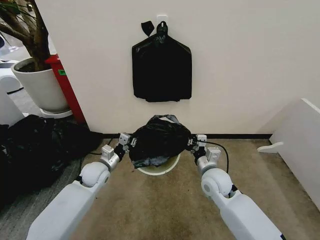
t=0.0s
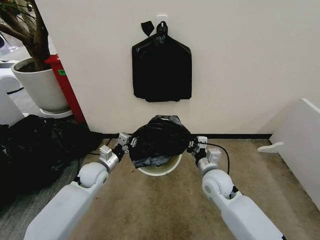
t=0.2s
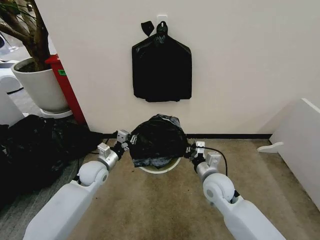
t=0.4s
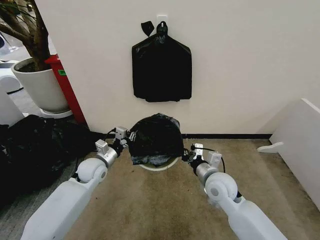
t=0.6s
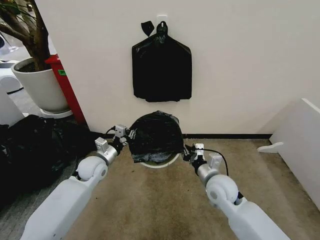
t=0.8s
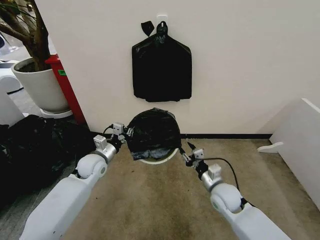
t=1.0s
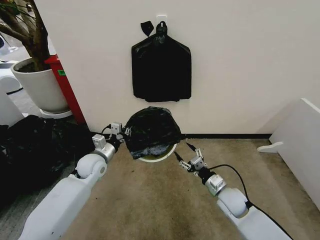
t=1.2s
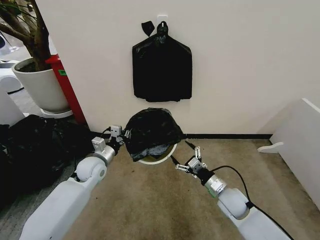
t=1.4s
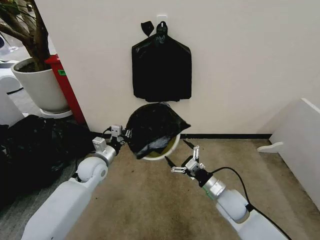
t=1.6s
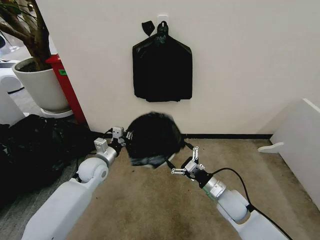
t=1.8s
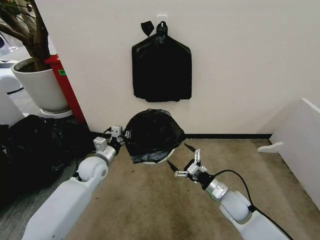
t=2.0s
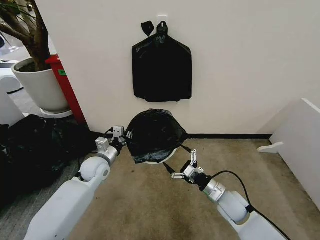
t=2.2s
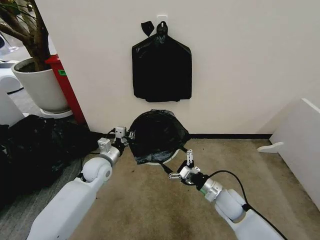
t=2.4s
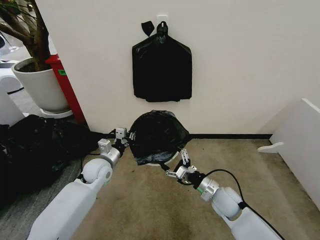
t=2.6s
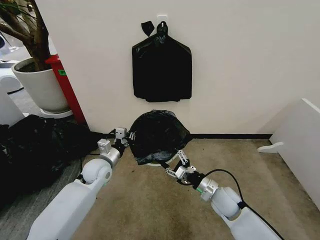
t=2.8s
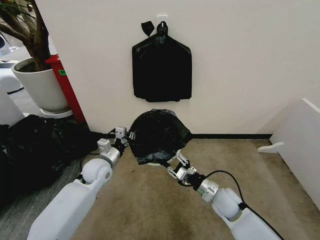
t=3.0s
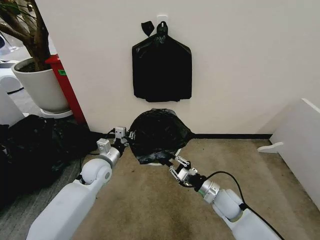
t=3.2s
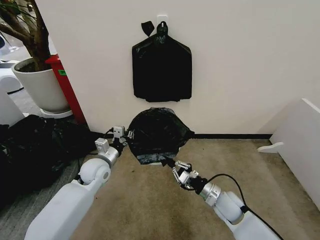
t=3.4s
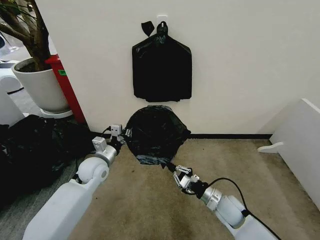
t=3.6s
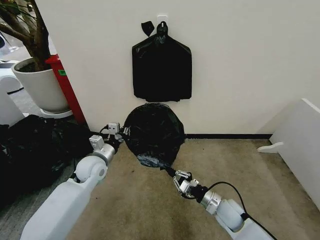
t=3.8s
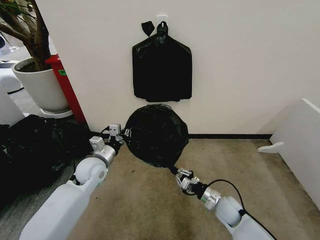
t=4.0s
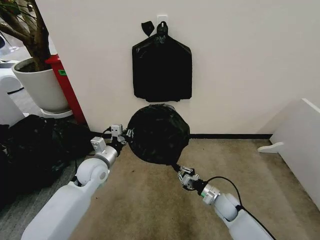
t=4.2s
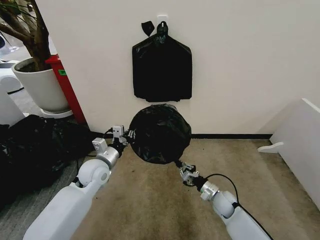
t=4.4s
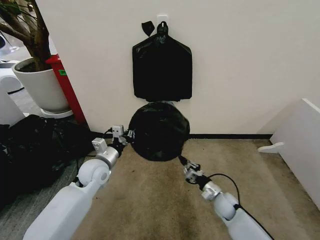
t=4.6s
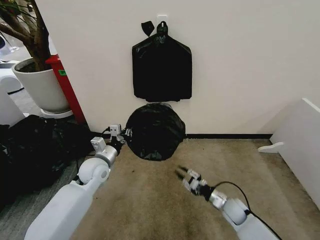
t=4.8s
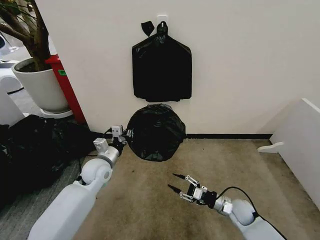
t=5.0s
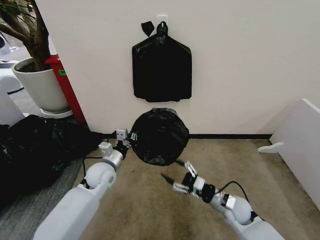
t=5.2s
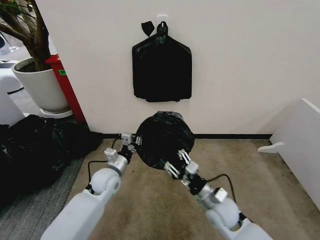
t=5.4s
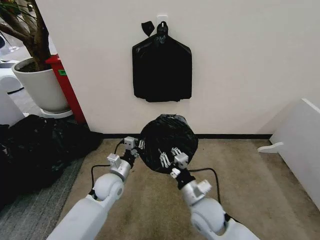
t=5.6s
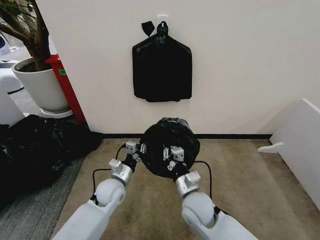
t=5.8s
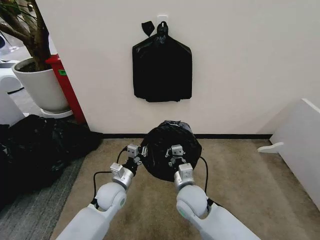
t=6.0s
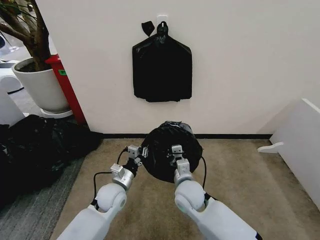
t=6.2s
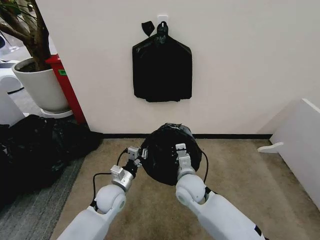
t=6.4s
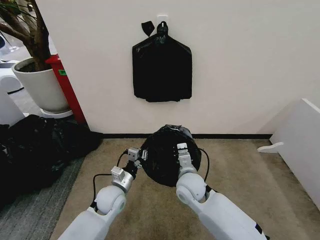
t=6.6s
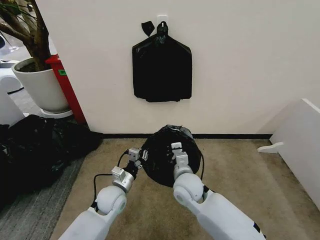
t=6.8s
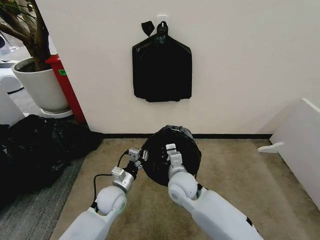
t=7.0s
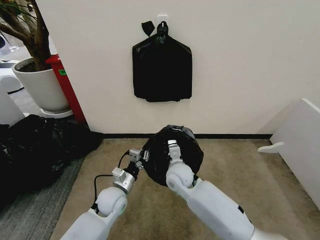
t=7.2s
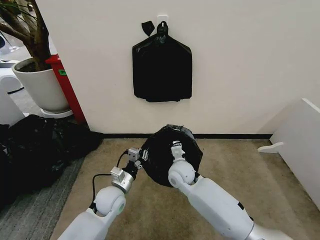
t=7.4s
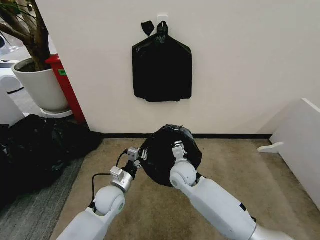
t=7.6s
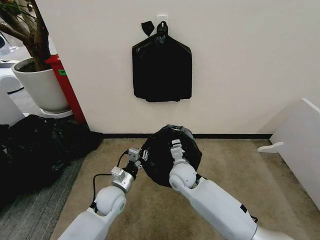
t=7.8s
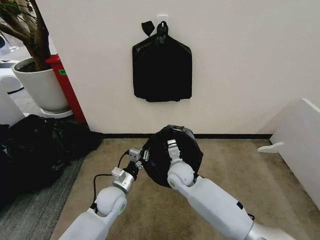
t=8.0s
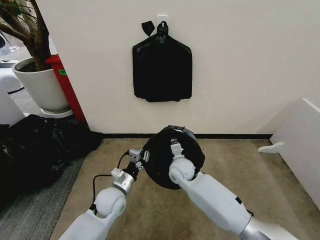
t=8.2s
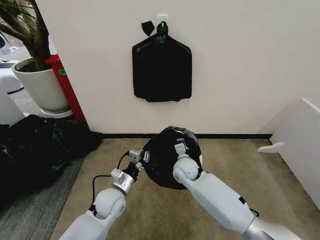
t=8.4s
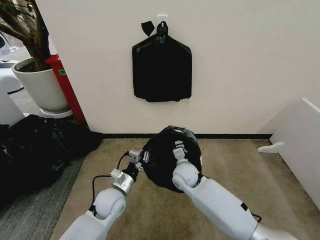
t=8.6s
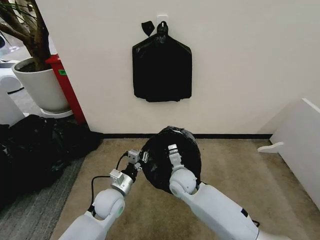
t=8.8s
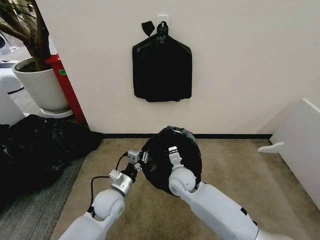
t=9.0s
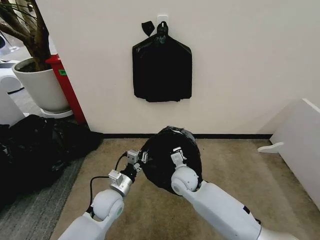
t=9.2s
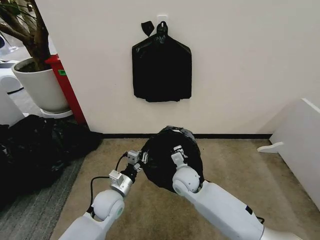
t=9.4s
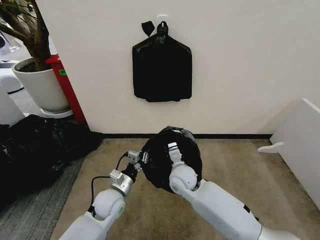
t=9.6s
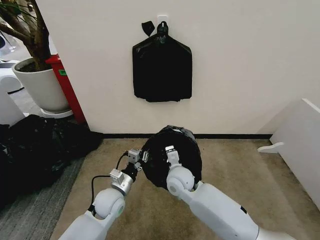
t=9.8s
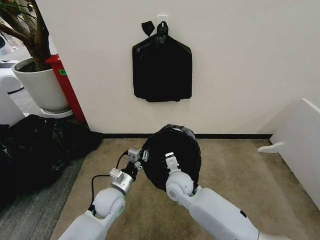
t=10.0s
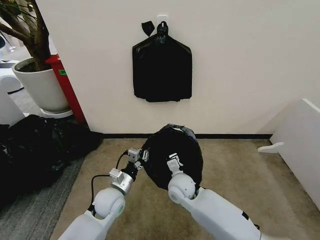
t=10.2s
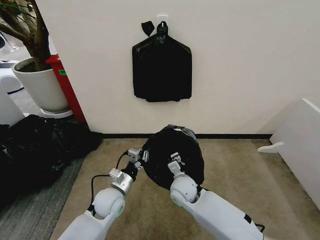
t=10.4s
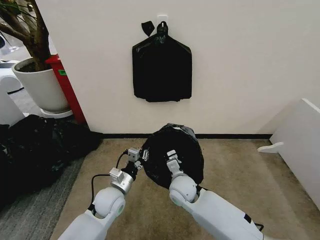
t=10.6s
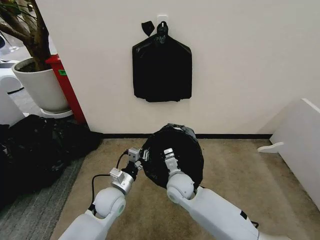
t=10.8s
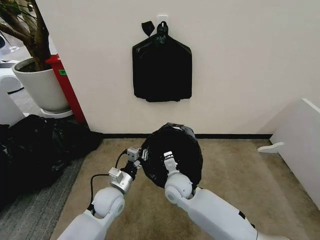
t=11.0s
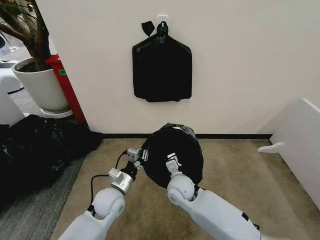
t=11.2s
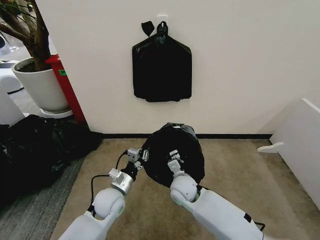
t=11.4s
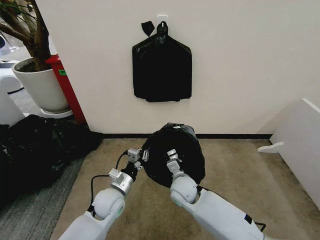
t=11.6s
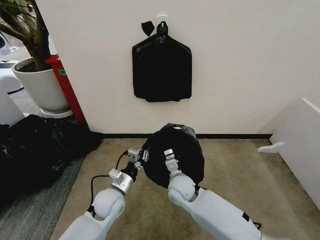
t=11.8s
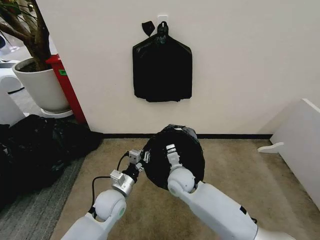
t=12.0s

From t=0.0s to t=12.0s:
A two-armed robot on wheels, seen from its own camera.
Task of the whole recording: Place the garbage bag over the trash bin.
From t=0.0s to t=1.6s: The right gripper heads downward and to the right, covering roughly 10 cm, and opens its fingers.
From t=1.6s to t=3.0s: The right gripper closes its fingers.
From t=3.0s to t=4.4s: The right gripper goes approximately 10 cm downward, and closes its fingers.
From t=4.4s to t=6.0s: The left gripper moves downward and to the right, about 10 cm. The right gripper travels to the left and upward by roughly 25 cm, and opens and closes again.
From t=6.0s to t=7.6s: The right gripper heads forward, covering roughly 10 cm.
From t=7.6s to t=12.0s: There are only small adjustments of the grippers.

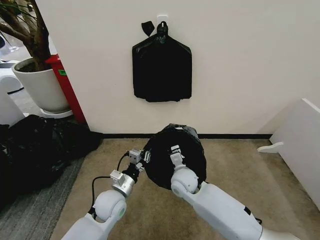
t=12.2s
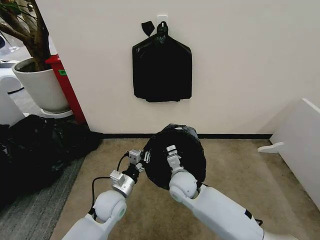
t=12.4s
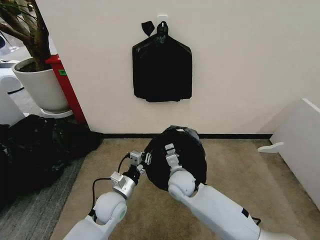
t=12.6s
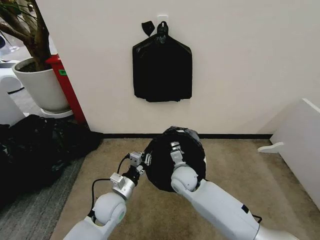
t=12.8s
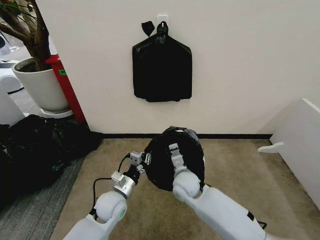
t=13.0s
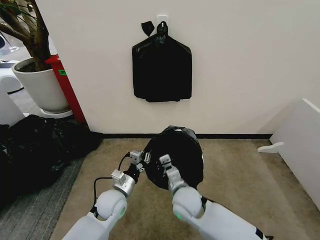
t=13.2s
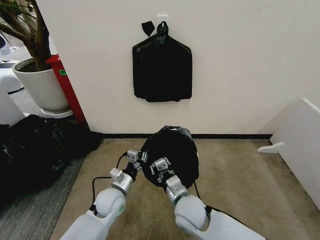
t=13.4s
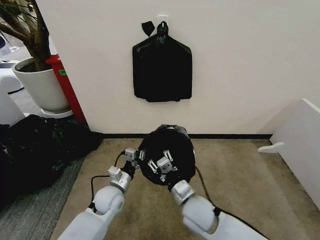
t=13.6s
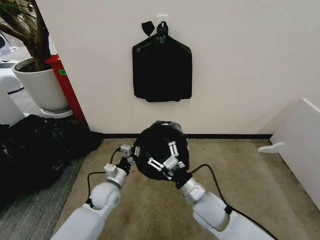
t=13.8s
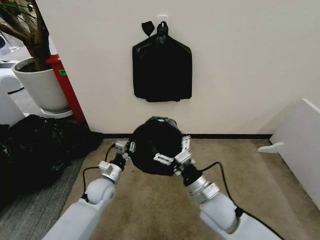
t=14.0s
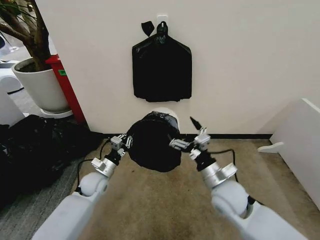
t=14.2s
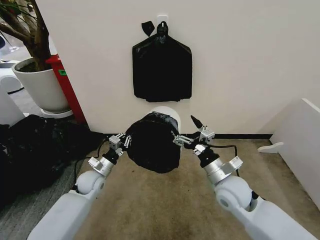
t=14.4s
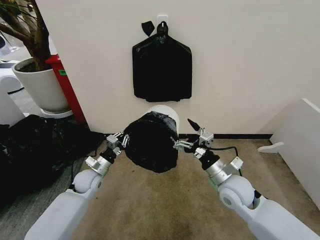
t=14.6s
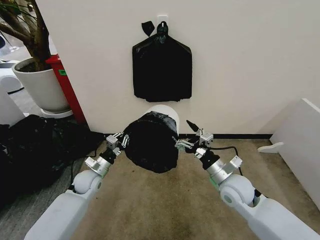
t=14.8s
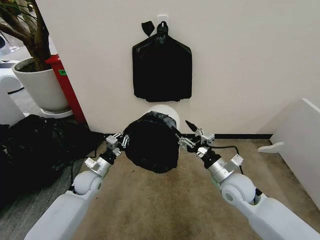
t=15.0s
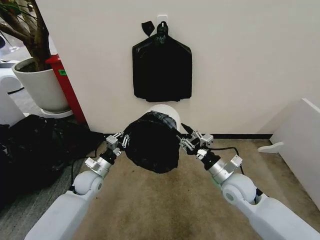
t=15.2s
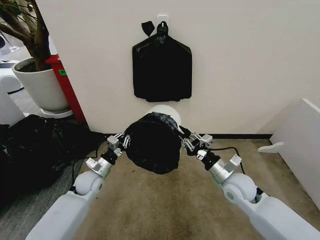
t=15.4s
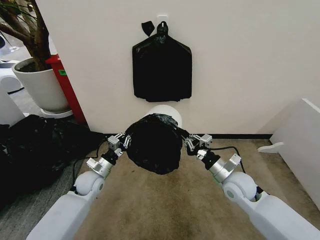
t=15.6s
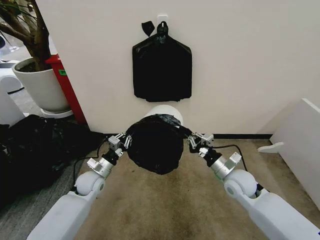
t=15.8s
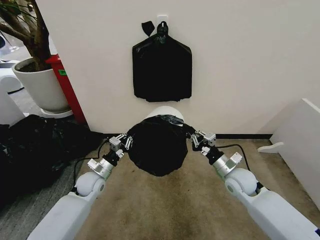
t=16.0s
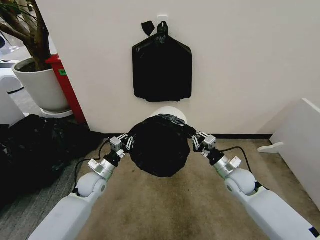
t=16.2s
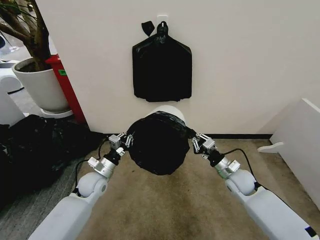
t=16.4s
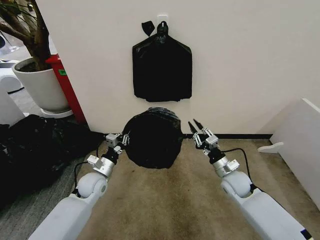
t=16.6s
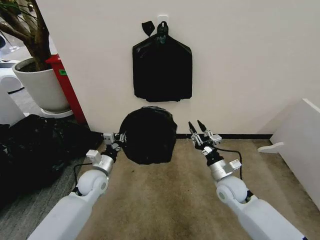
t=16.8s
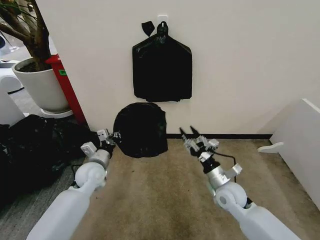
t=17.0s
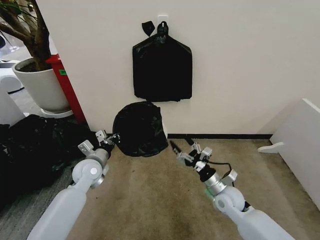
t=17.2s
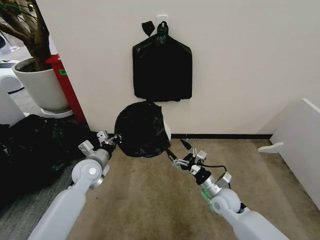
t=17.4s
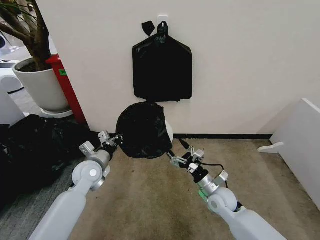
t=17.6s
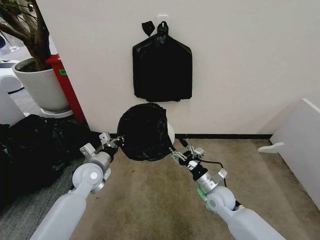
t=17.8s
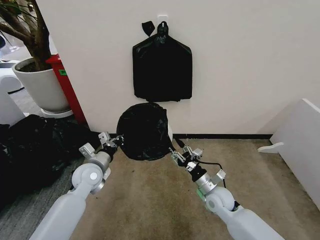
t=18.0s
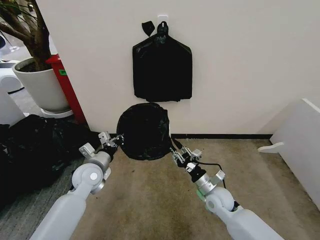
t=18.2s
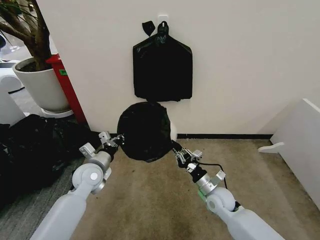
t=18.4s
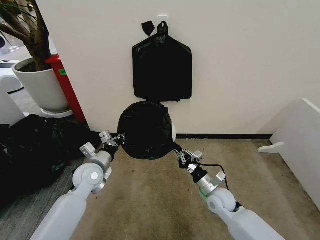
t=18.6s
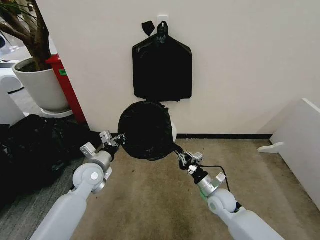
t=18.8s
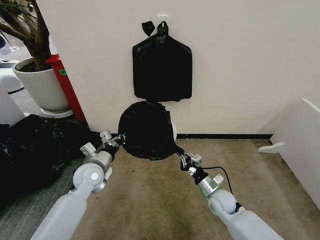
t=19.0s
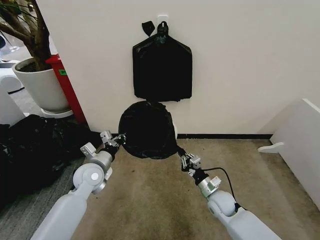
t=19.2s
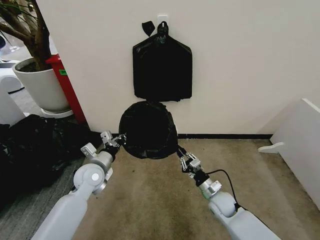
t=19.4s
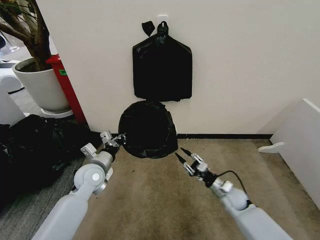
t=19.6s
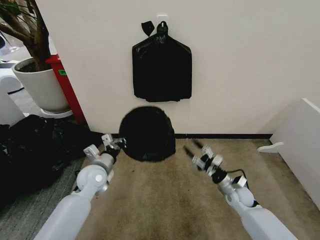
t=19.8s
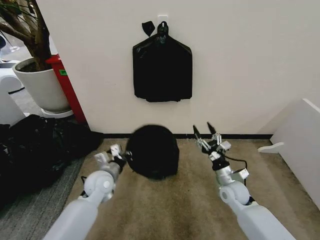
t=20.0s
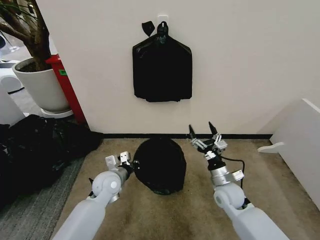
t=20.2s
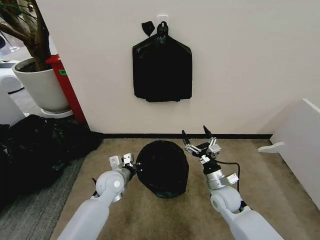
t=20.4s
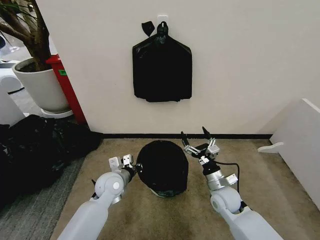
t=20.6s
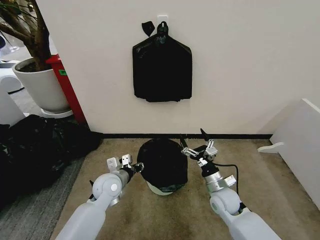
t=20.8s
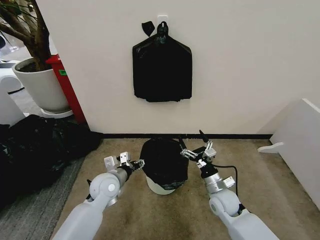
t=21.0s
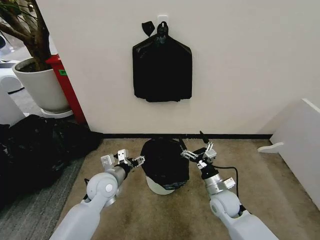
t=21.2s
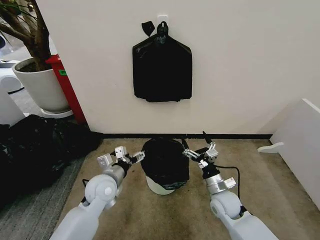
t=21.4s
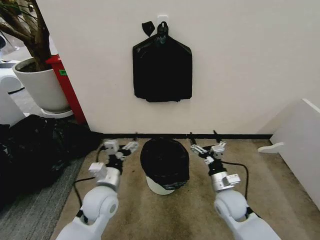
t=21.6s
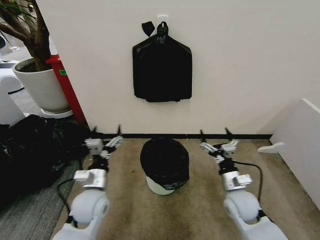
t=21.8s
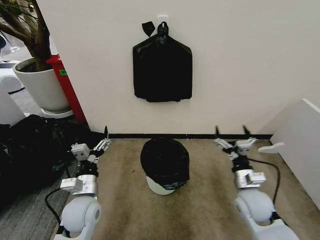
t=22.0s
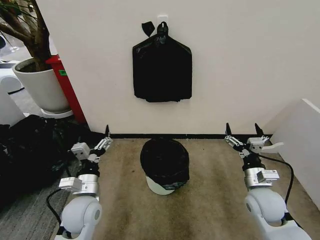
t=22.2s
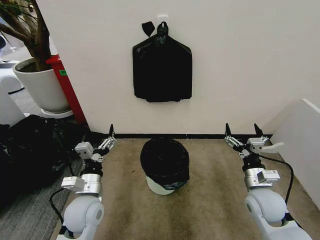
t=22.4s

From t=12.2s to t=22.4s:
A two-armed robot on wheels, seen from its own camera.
Task of the whole recording: Place the garbage bag over the trash bin.
From t=12.2s to t=13.6s: The right gripper travels backward by some 10 cm, and opens.
From t=13.6s to t=15.2s: The right gripper is displaced to the right and forward by approximately 15 cm, and opens and closes again. Meanwhile the left gripper heads to the left and forward, covering some 10 cm.
From t=15.2s to t=16.6s: The right gripper goes some 5 cm downward.
From t=16.6s to t=18.0s: The right gripper moves to the left, some 5 cm, and opens, while the left gripper heads upward, covering about 5 cm.
From t=18.0s to t=19.4s: The right gripper shifts about 5 cm downward, and closes.
From t=19.4s to t=21.0s: The left gripper moves to the right, approximately 5 cm, and opens up. The right gripper shifts approximately 5 cm upward, goes to the right and returns, approximately 10 cm each way, and opens up.
From t=21.0s to t=22.4s: The right gripper goes roughly 15 cm upward and to the right, while the left gripper goes roughly 10 cm backward, and opens its fingers.
